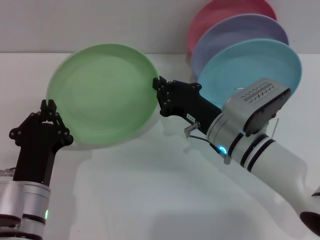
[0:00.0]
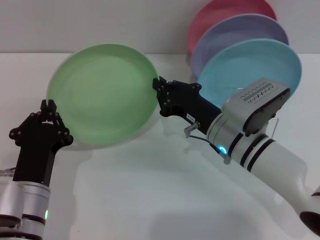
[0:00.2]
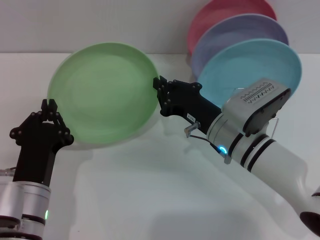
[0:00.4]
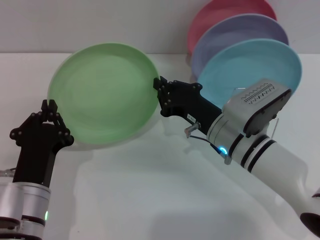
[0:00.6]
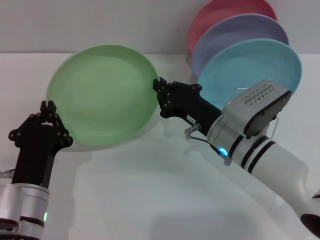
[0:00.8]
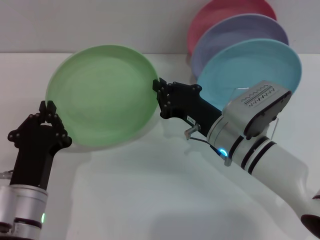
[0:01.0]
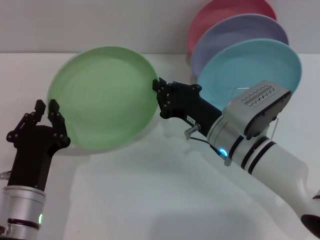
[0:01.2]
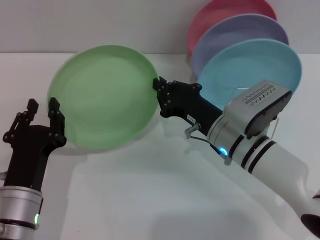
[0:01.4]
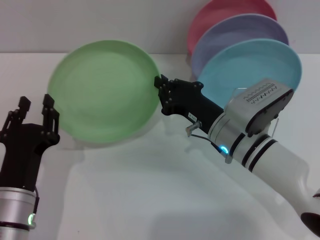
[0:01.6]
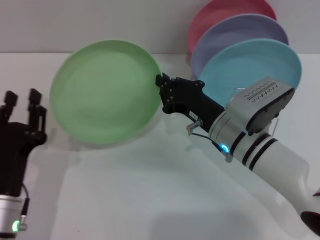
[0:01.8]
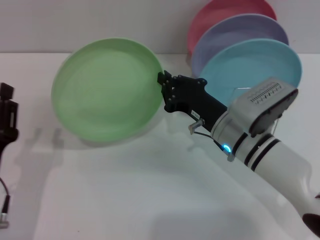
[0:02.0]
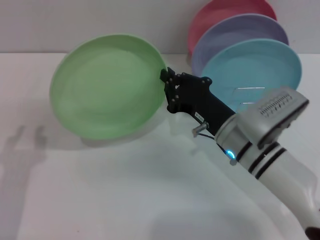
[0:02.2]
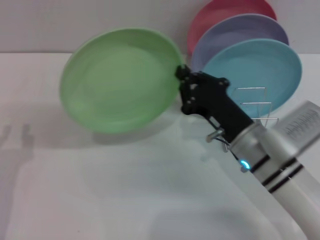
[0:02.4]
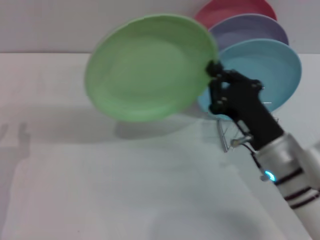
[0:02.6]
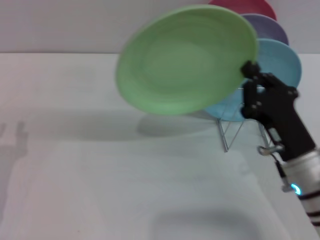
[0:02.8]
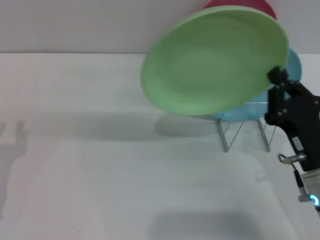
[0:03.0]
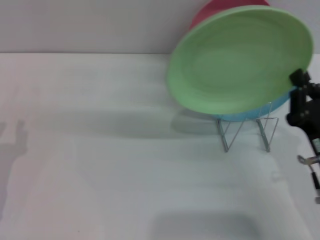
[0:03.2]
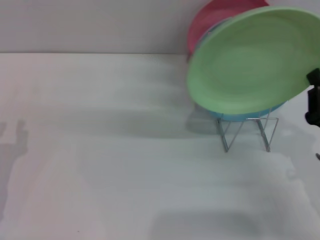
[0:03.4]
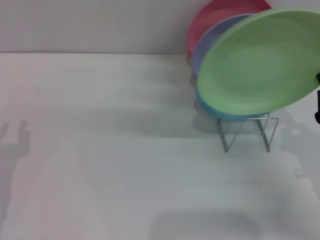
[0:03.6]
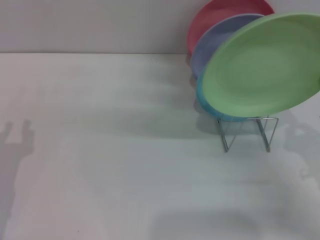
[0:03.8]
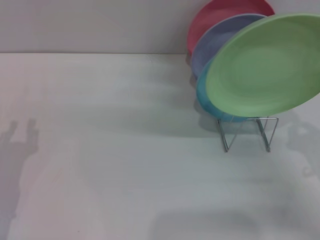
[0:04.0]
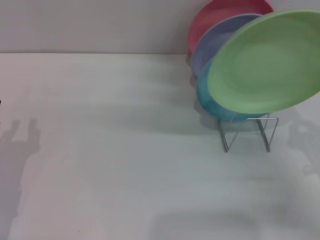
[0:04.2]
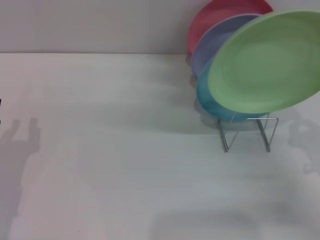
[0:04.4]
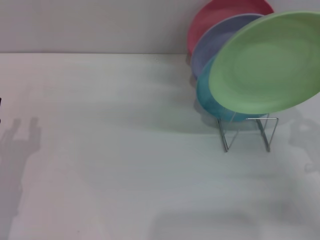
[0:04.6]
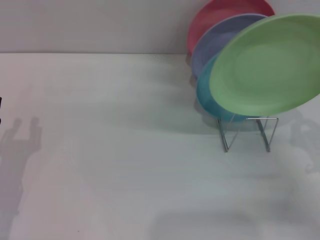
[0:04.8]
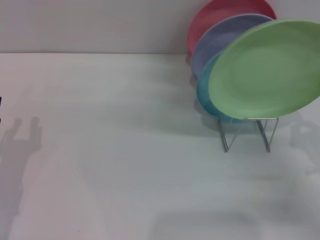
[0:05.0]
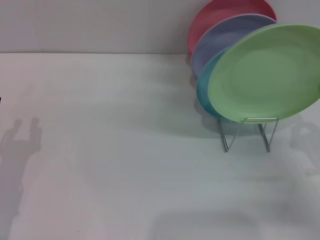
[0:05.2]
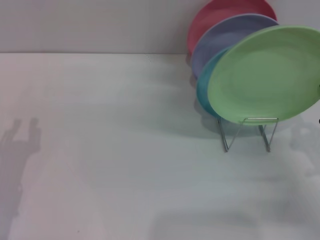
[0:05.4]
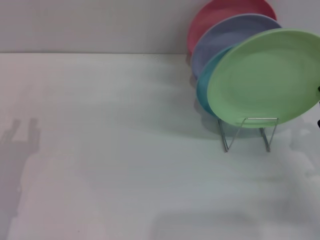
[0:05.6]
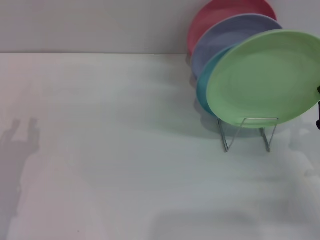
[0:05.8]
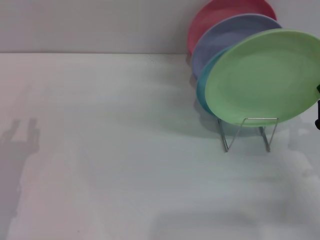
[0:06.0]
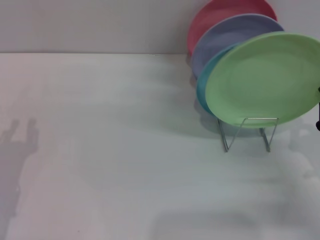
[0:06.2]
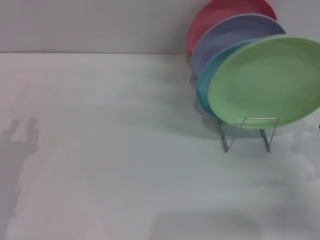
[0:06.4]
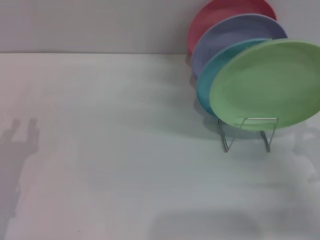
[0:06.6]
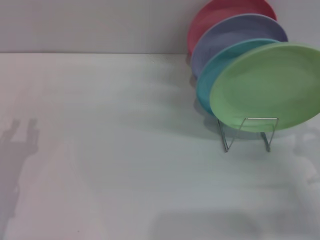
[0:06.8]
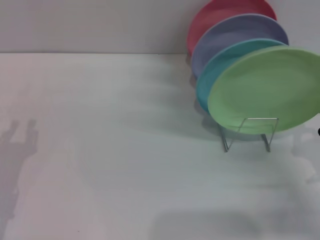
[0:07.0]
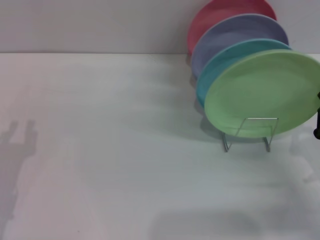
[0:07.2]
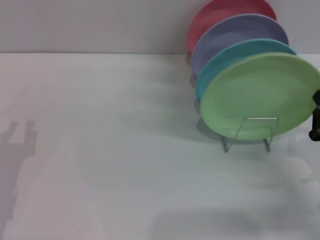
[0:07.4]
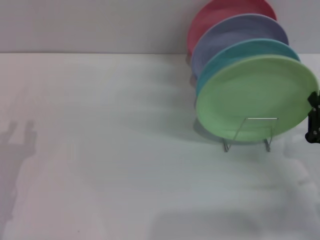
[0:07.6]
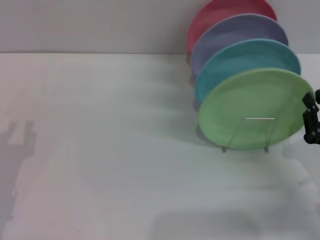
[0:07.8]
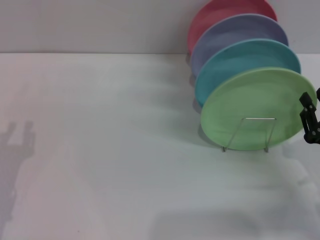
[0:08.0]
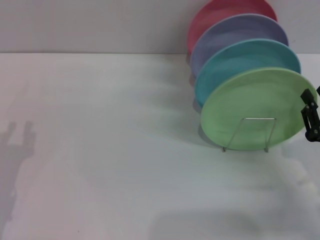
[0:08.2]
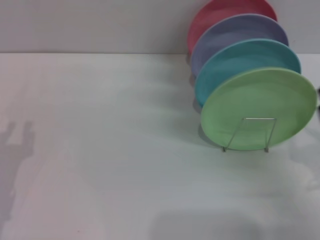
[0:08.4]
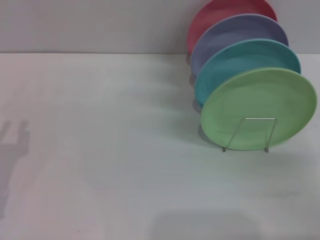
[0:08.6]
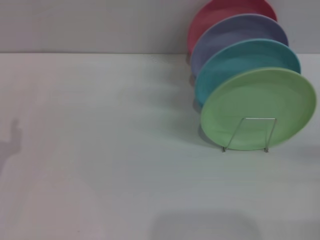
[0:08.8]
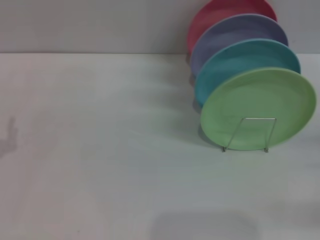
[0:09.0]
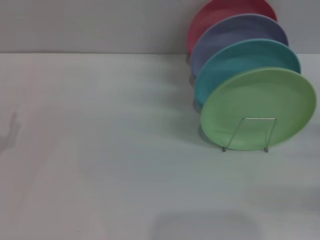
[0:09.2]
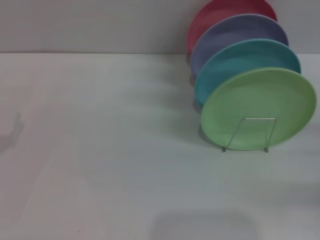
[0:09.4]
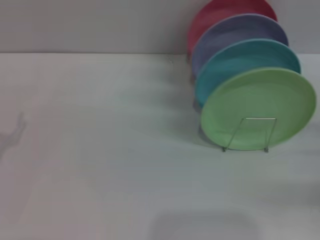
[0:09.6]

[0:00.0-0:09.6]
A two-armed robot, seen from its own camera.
Task of the whole recording: Grip the plate with one hand, pass it to the other, then set it on the shelf.
Step, 0:00.0 to 0:02.2: Pass the plate from the left gripper to the right gripper.
Step, 0:02.4 to 0:08.0: Place the plate on the shelf with the right gripper.
0:00.0 to 0:01.6: The left gripper opens.
0:01.6 to 0:03.2: The right gripper moves to the right and backward, some 15 cm. Meanwhile the left gripper travels to the left by some 10 cm.
0:03.2 to 0:04.8: The right gripper travels to the right by approximately 5 cm.
0:04.8 to 0:06.4: There are only small adjustments of the grippers.
0:06.4 to 0:08.0: The right gripper opens.
0:08.0 to 0:09.6: The right gripper shifts about 10 cm to the right, and opens its fingers.
